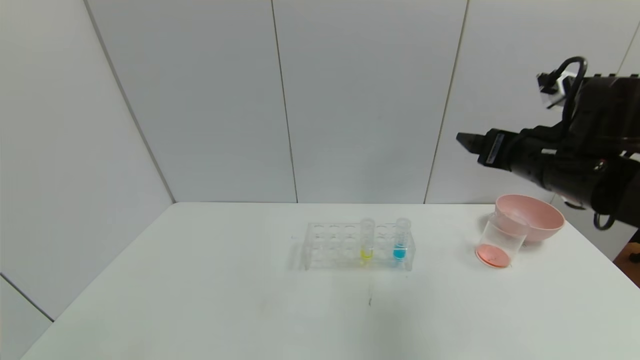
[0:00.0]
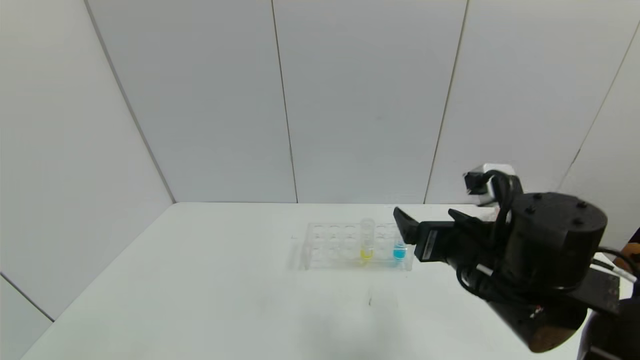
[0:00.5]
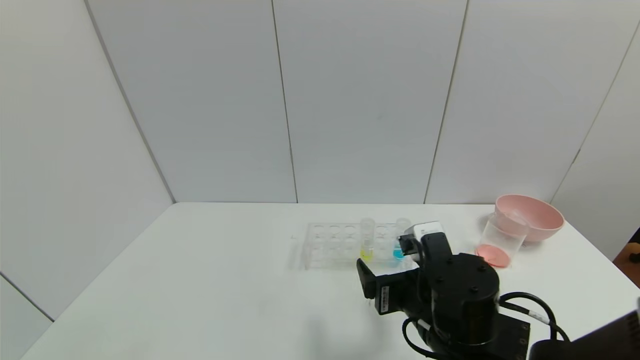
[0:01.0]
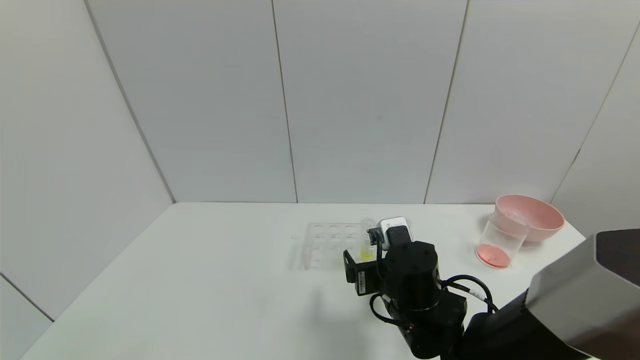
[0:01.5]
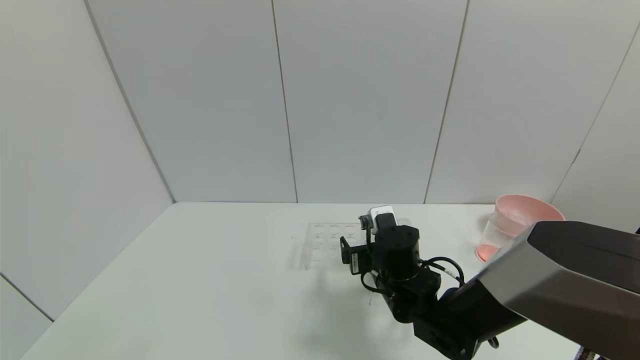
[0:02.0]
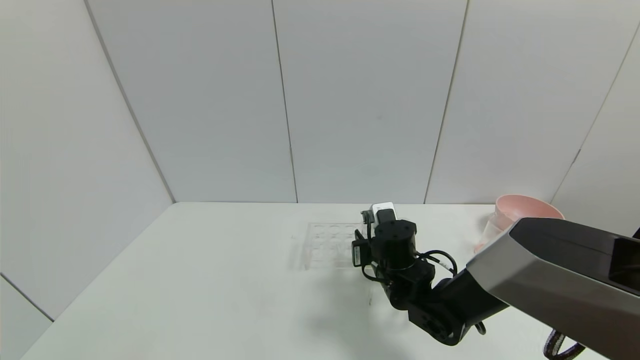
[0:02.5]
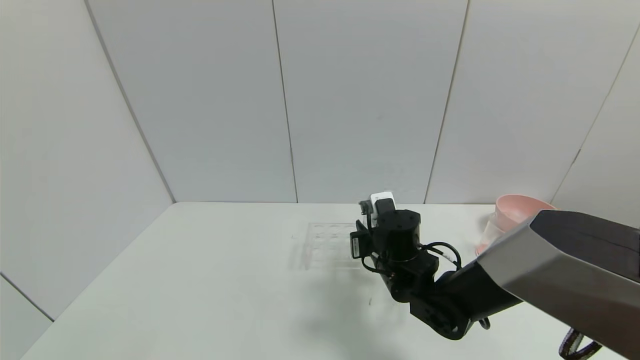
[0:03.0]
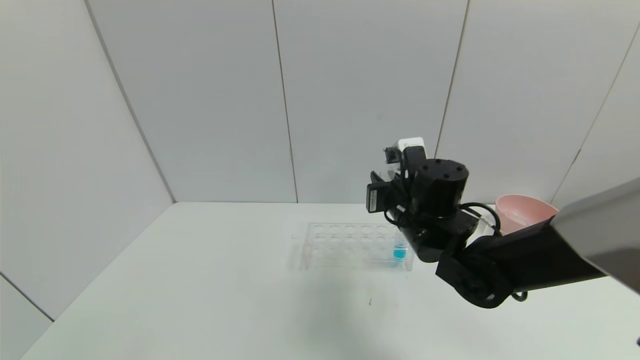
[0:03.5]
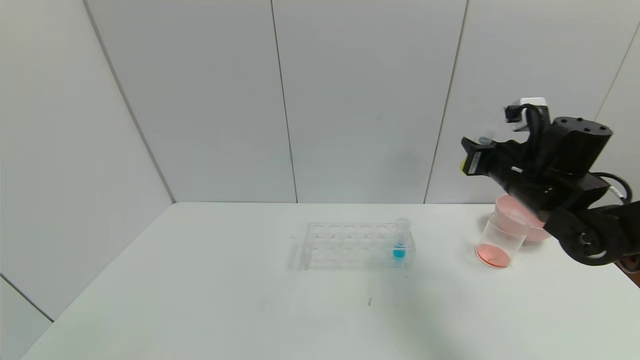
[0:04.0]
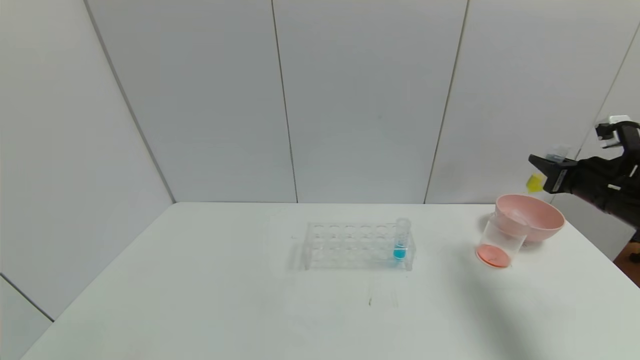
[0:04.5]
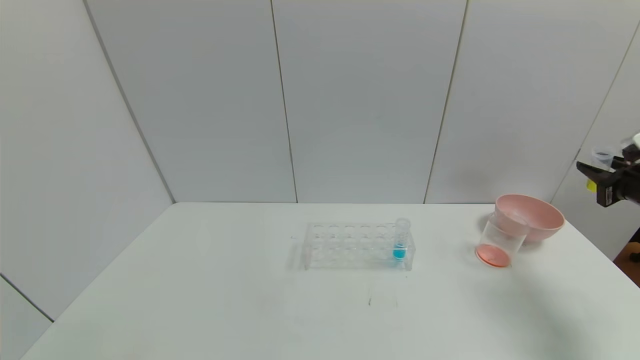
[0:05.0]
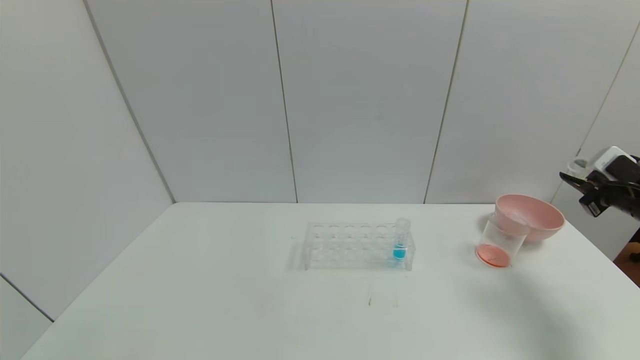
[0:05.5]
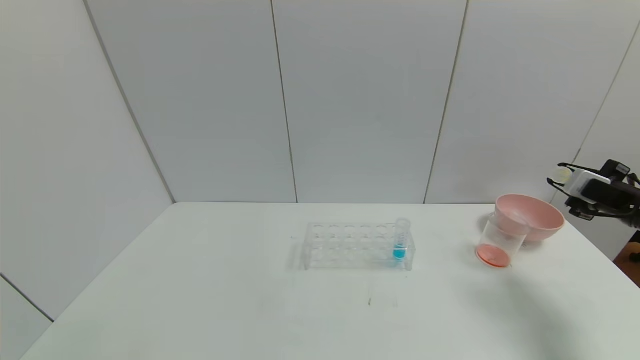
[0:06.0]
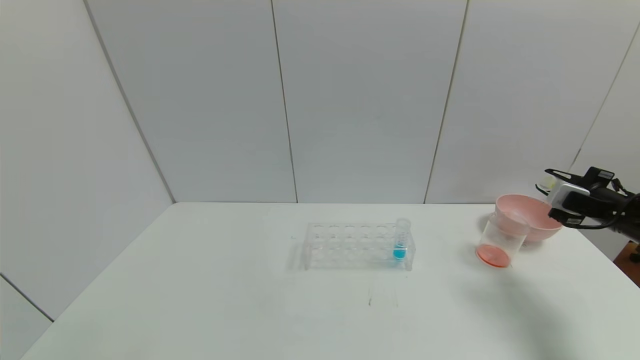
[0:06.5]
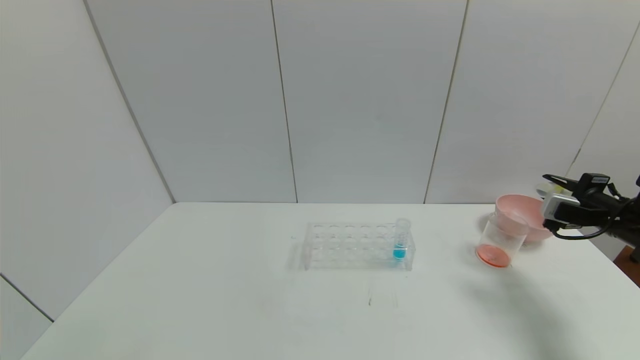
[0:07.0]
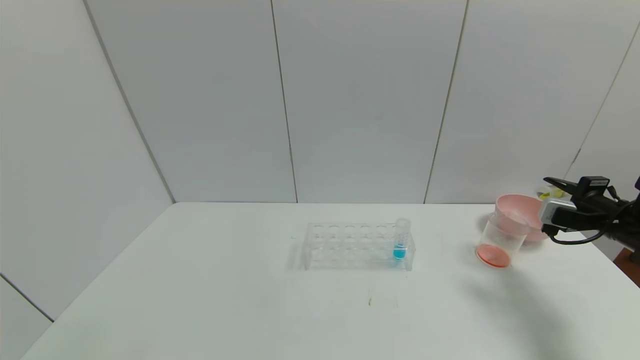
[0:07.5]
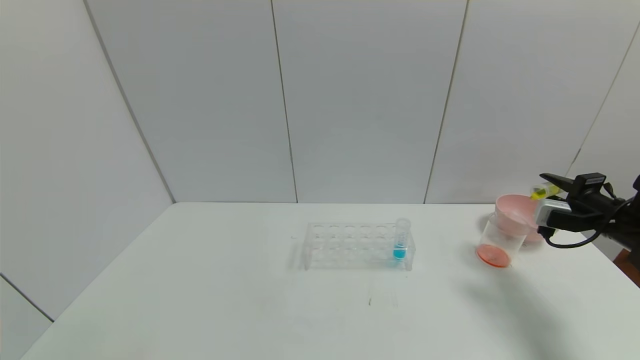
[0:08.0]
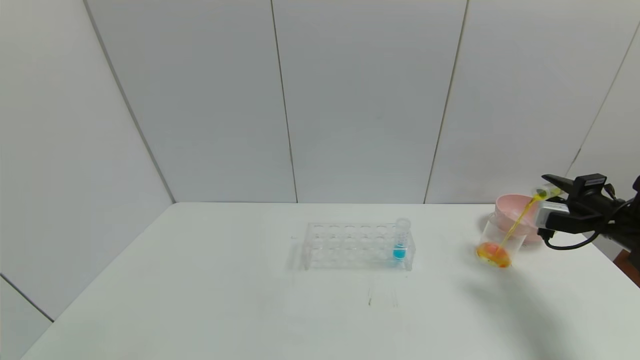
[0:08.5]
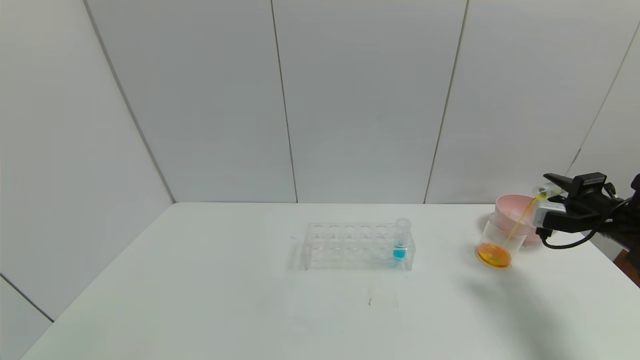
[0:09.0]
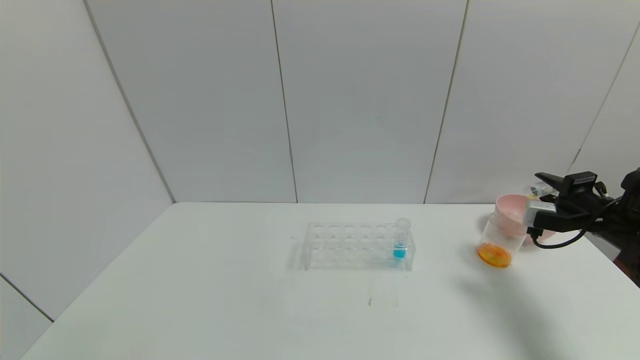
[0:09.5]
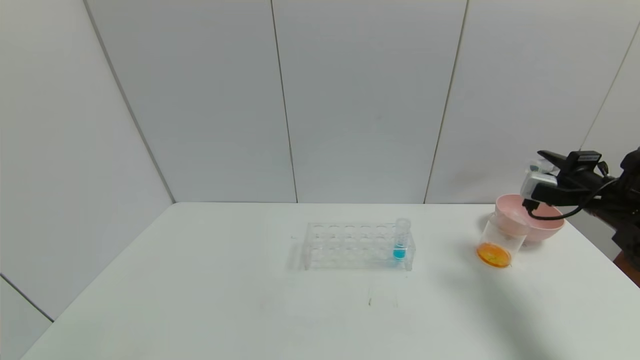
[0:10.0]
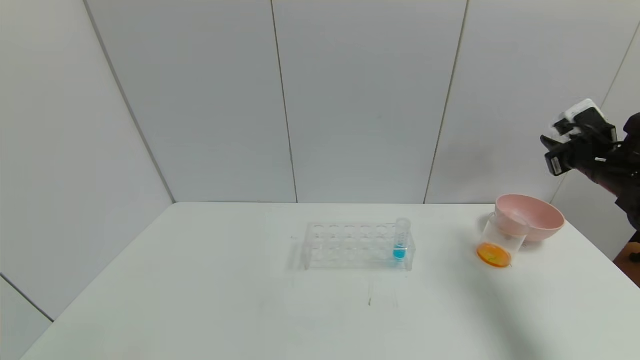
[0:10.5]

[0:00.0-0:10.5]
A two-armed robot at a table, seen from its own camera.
Task of the whole recording: pick up the test tube with yellow pigment and the test tube with red pigment by grippers and pour them into the beaker.
Step, 0:00.0 to 0:02.5: Grasp the yellow reagent with the right gripper.
Step, 0:03.0 to 0:09.5: Pour the yellow reagent into the graduated cylinder with the right gripper.
0:00.0 to 0:02.0: The right gripper shifts roughly 25 cm downward and to the left.
0:02.0 to 0:04.0: The right gripper heads to the right and upward, covering some 25 cm, and closes up.
0:04.0 to 0:06.5: The right gripper is displaced to the right by about 15 cm.
0:06.5 to 0:08.5: The grippers move only a little.
0:08.5 to 0:10.5: The right gripper is displaced upward by about 5 cm.

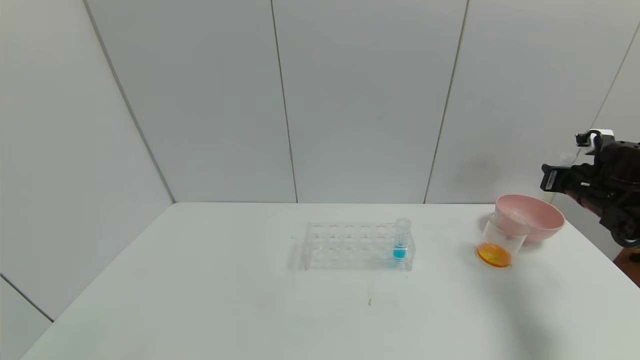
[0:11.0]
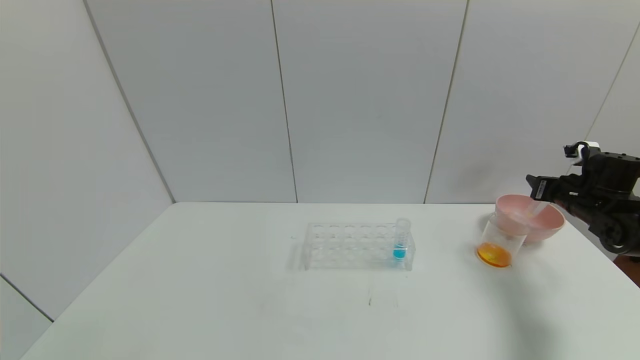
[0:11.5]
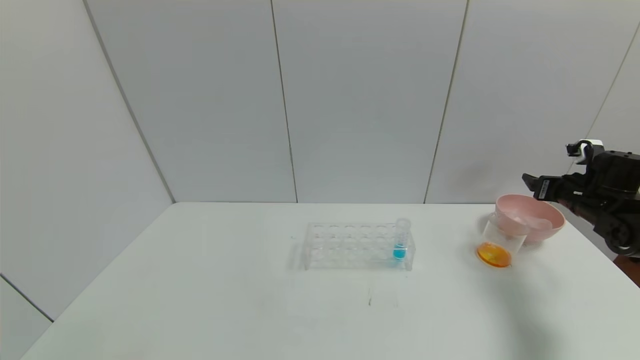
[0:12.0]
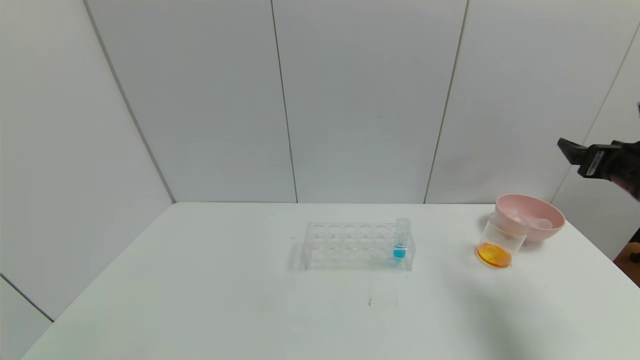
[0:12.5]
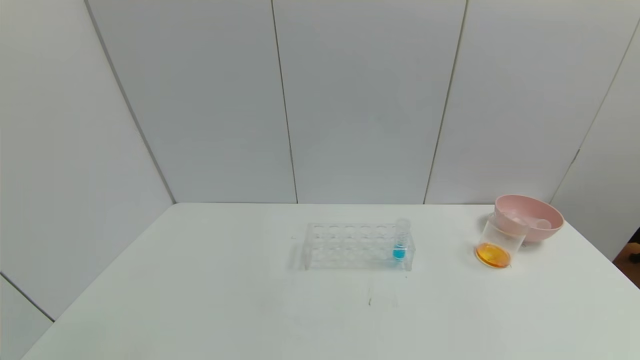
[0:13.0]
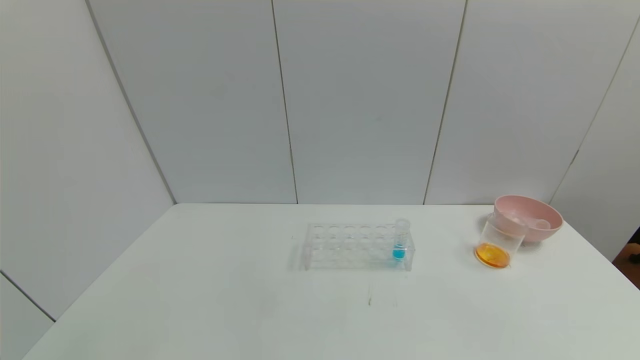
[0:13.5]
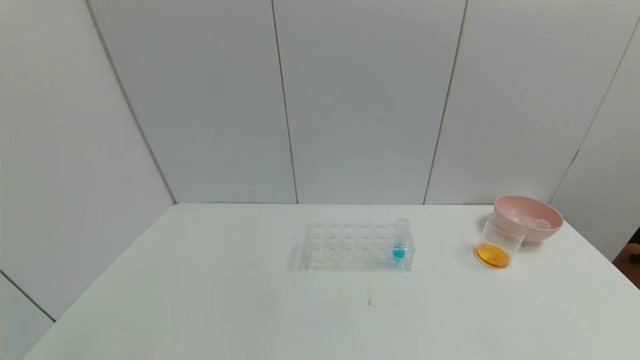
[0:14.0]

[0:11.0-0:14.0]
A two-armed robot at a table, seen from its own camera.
Task of the whole recording: pick up the test tube with yellow pigment and the test tube with red pigment by grippers and pour them into the beaker.
0:11.0 to 0:12.5: The right gripper goes about 15 cm backward and upward, and opens.
0:12.5 to 0:14.0: The right gripper heads backward and downward, covering about 35 cm.
